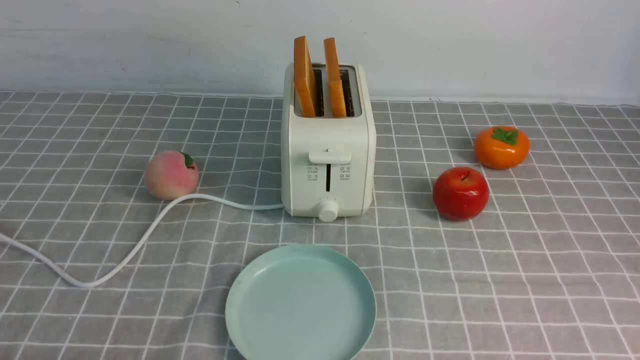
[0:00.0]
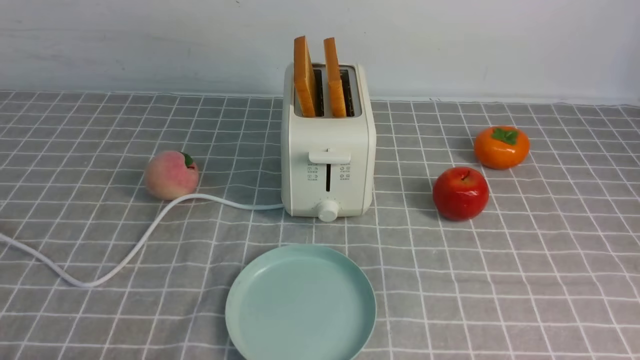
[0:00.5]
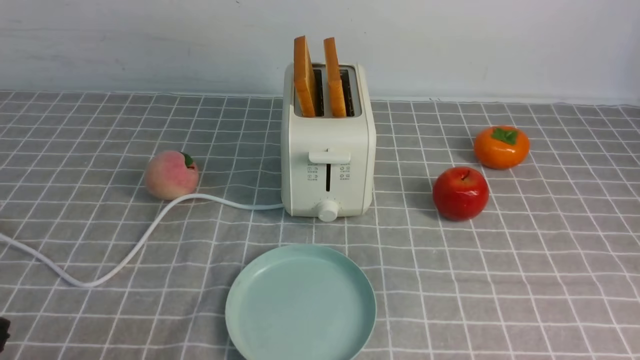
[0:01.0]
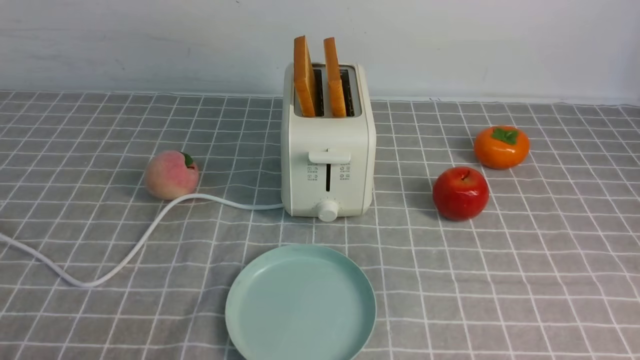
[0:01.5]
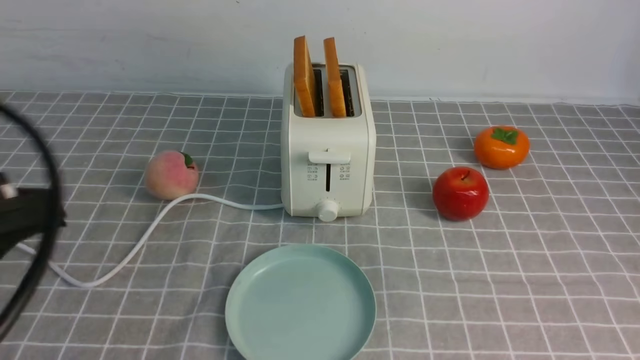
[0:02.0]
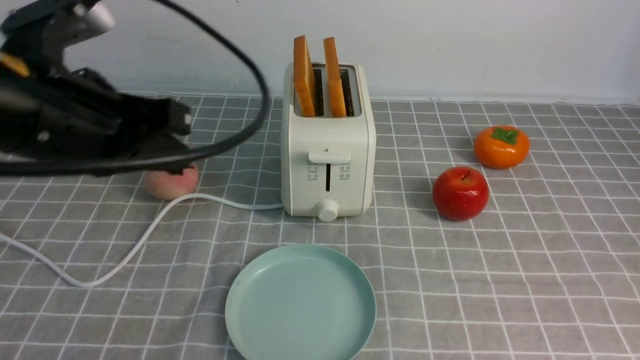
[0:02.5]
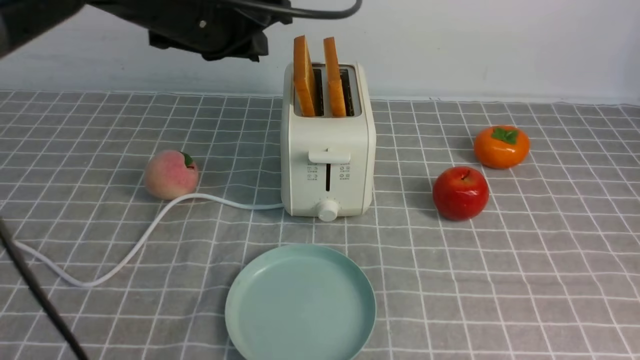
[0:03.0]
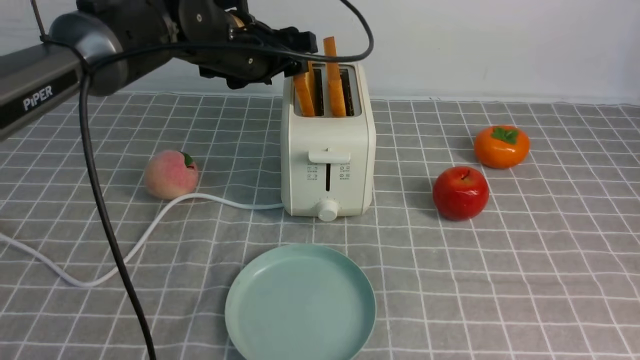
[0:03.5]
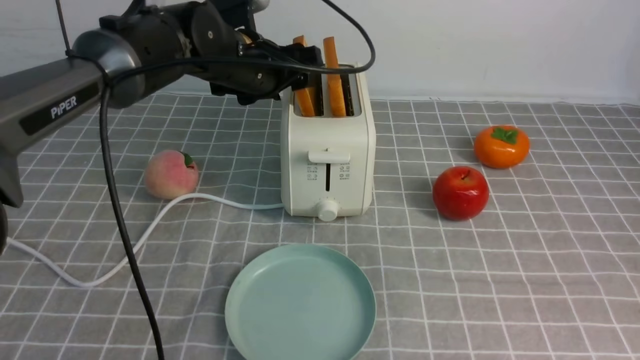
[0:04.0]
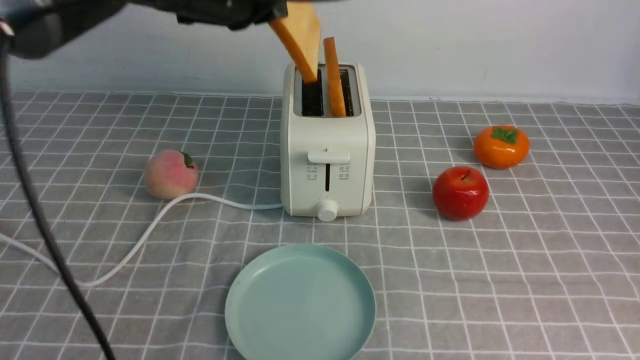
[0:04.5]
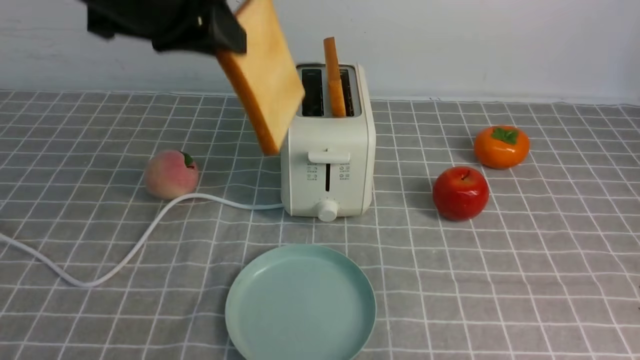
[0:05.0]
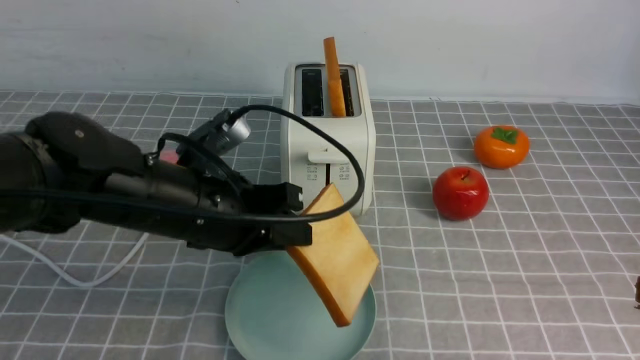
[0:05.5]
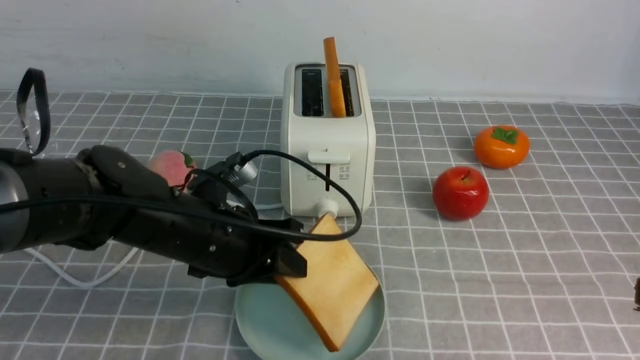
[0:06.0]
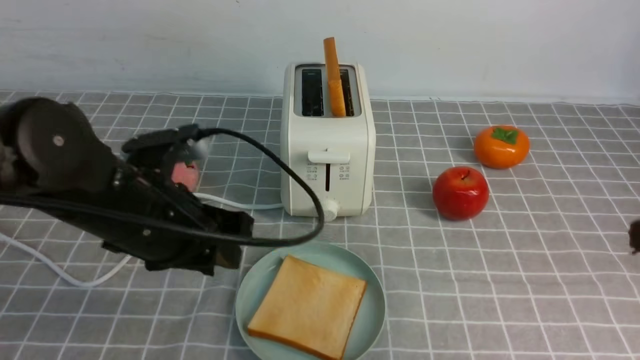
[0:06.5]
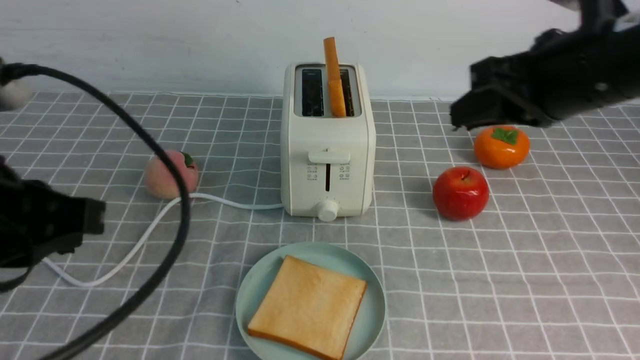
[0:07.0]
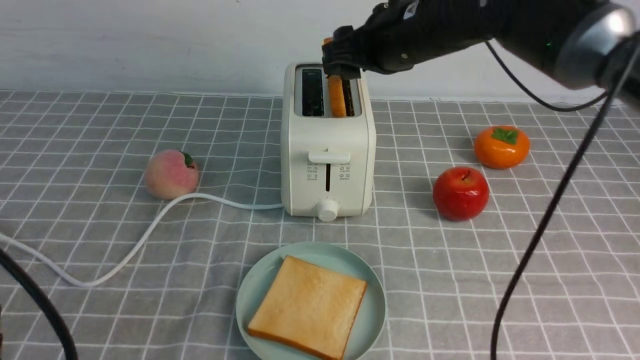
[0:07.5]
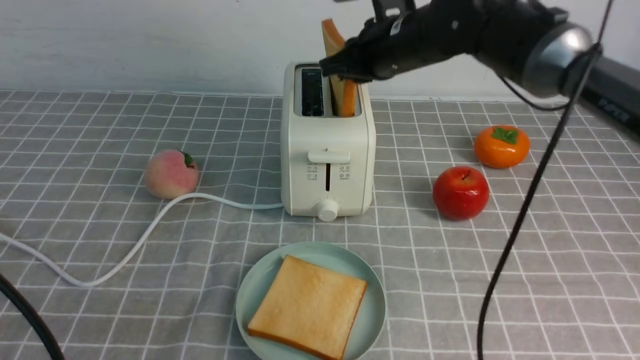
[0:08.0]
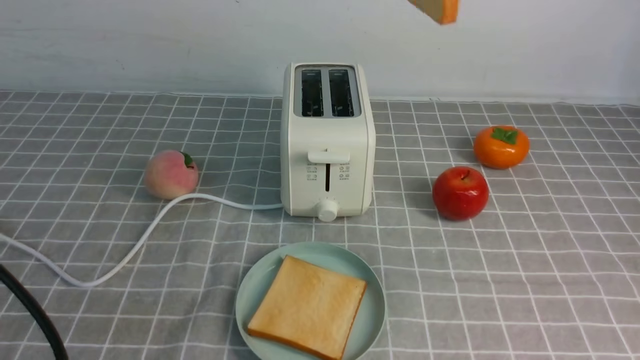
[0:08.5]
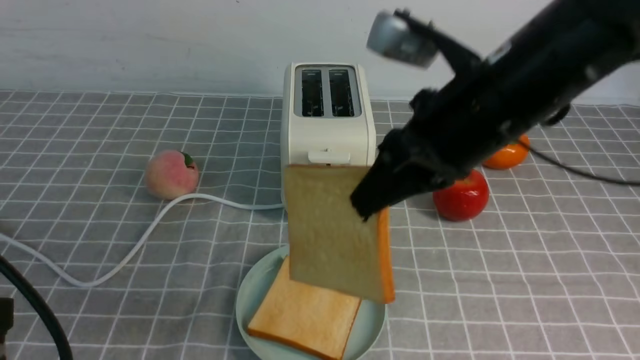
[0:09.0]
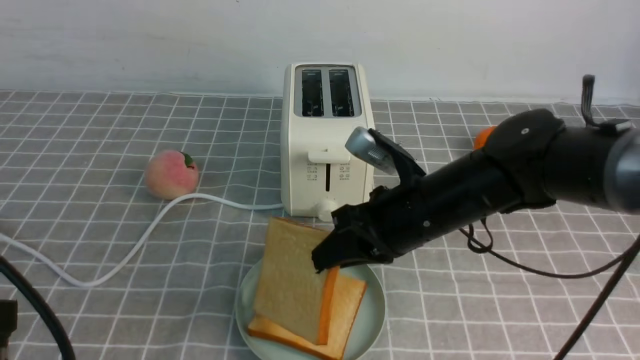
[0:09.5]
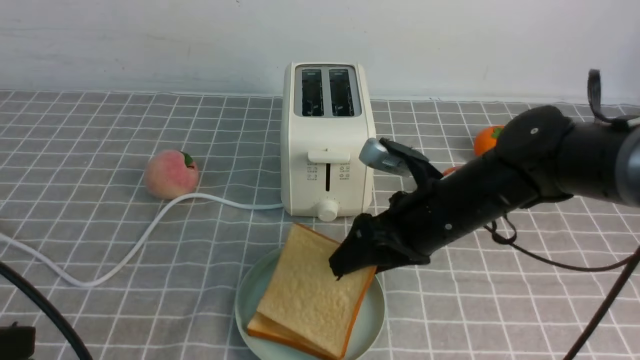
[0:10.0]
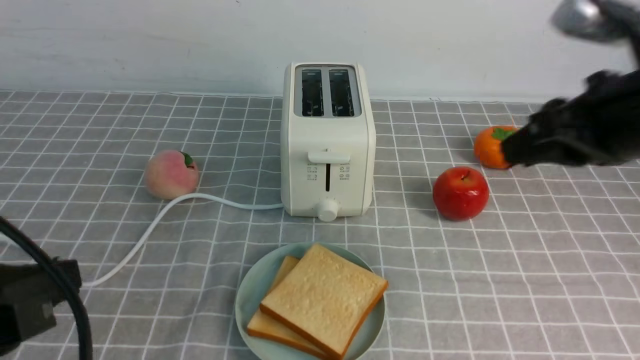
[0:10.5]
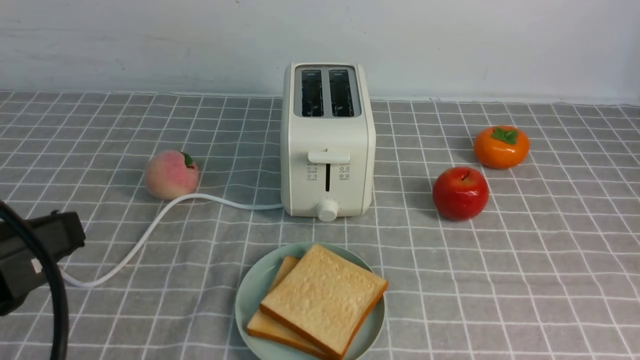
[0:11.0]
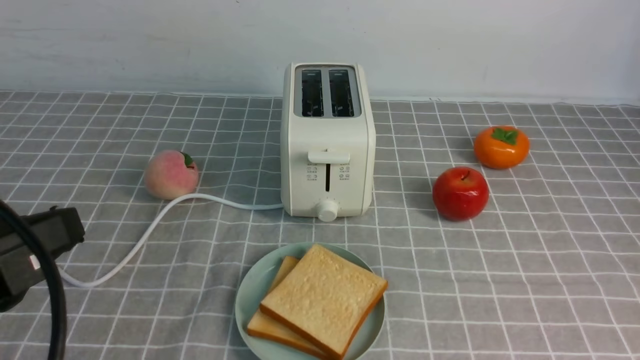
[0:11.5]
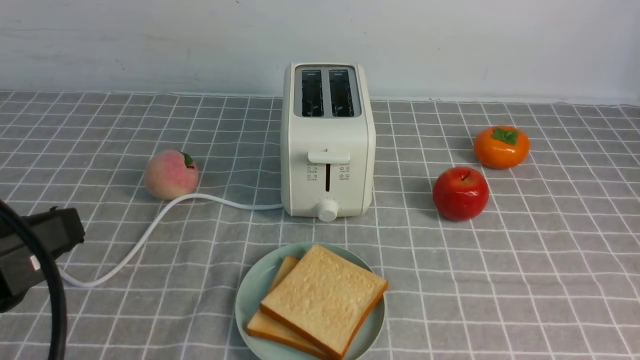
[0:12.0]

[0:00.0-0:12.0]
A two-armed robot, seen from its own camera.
Task of the whole recording: take toasted bread from bread machine on grey coffee table place on plate.
Step, 0:00.0 to 0:04.0: use the left arm to take out a slice of bread.
Step, 0:04.5 to 0:06.5: use the left arm to put a slice of bread into the empty plate.
Step, 0:07.0 to 0:08.0: use the right arm to take out a slice of bread.
Step, 0:08.5 to 0:10.0: use the right arm to put a slice of bread into the plate.
0:00.0 to 0:02.0: The left gripper heads upward, covering about 20 cm, and closes.
0:02.0 to 0:04.0: The right gripper shifts approximately 5 cm forward; the left gripper shifts approximately 35 cm forward and to the right, and opens.
0:04.0 to 0:06.0: The left gripper travels backward and downward by approximately 20 cm, and closes and opens again.
0:06.0 to 0:08.0: The right gripper travels forward and to the left by about 35 cm, and opens, then closes once more. The left gripper is displaced backward, to the left and upward by some 25 cm, and closes up.
0:08.0 to 0:10.0: The right gripper is displaced downward and backward by approximately 20 cm, and opens up.
0:10.0 to 0:12.0: The right gripper is displaced backward and to the right by about 35 cm, and closes.

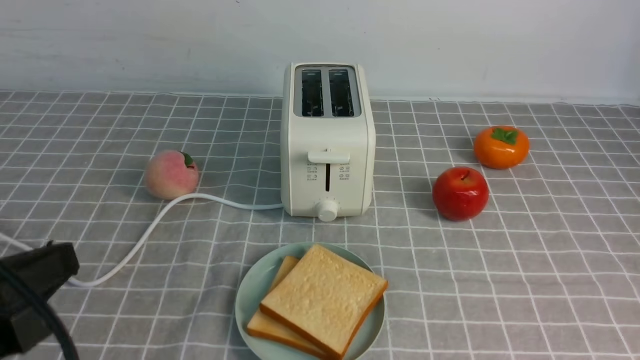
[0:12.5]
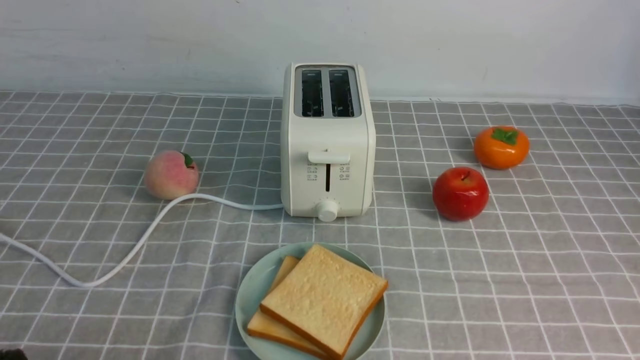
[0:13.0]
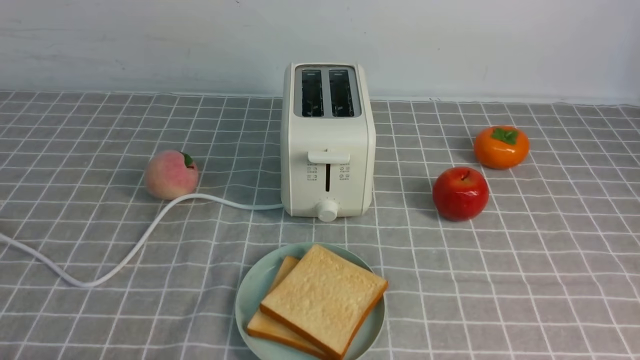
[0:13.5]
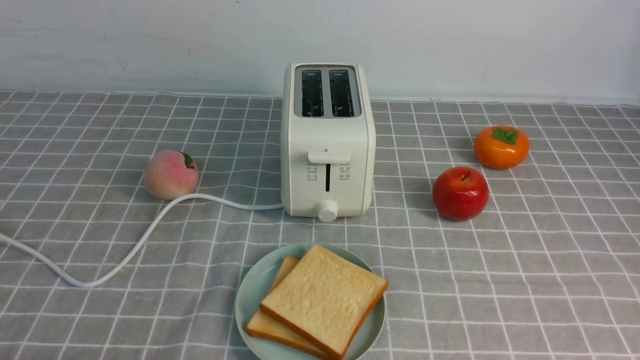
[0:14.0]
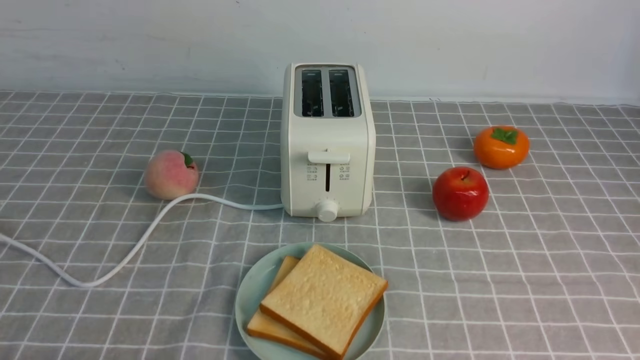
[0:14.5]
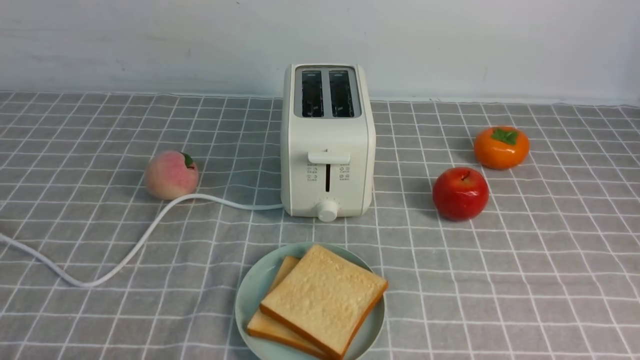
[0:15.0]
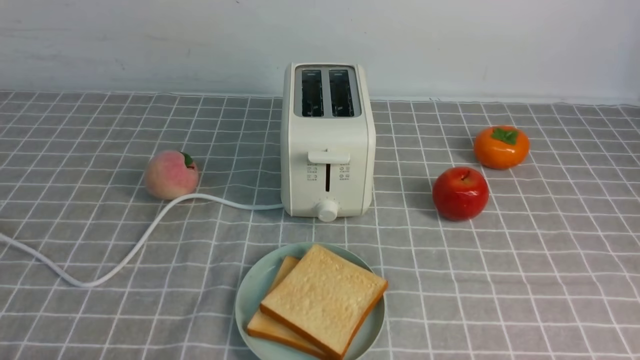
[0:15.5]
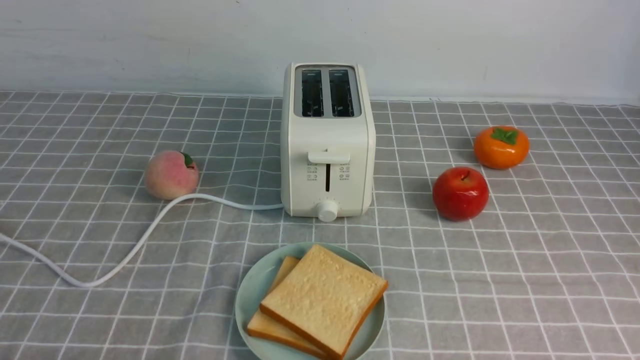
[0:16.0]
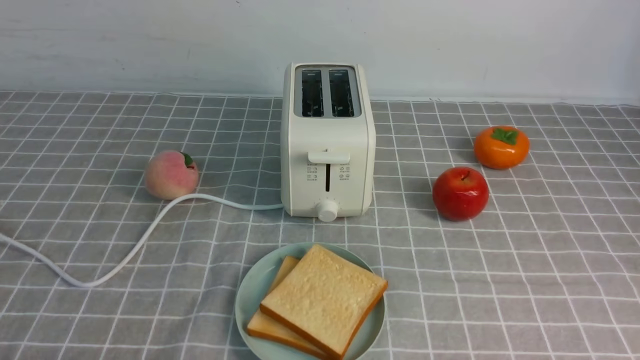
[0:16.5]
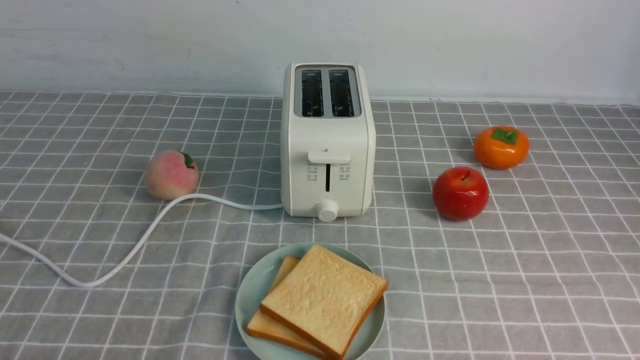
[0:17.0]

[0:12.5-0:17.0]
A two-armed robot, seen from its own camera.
Task of the whole recording: take toasted bread from bread machine on grey coffee table place on plate.
0:12.5 to 0:14.5: The left gripper is displaced downward by about 10 cm.
